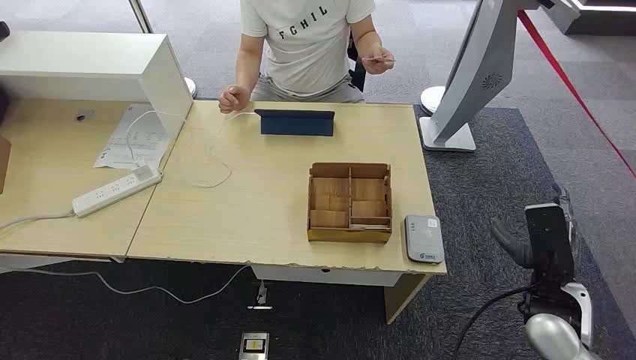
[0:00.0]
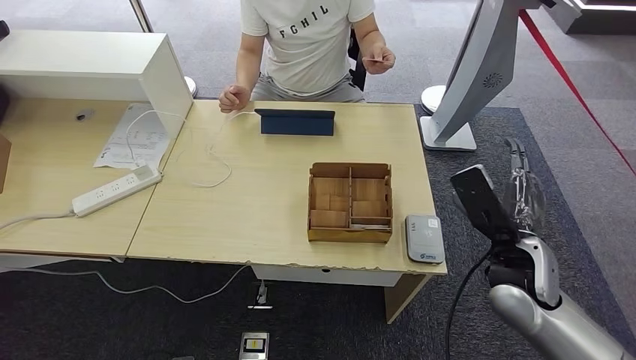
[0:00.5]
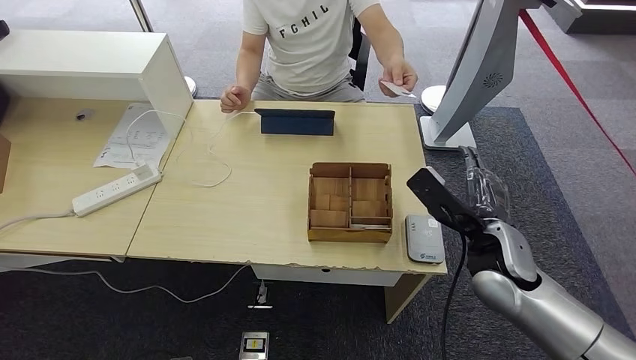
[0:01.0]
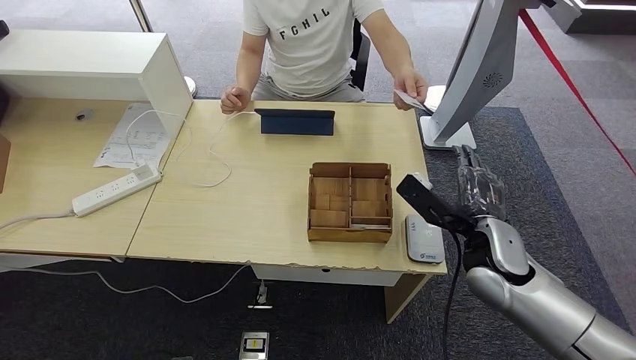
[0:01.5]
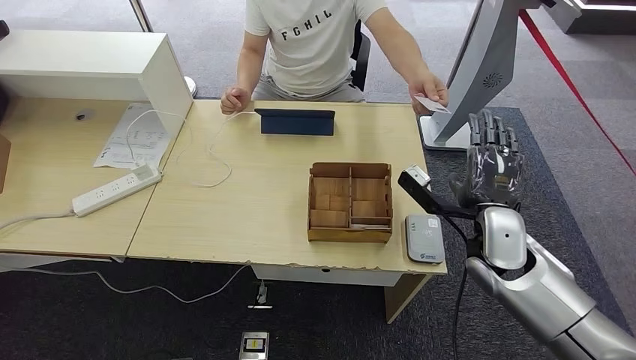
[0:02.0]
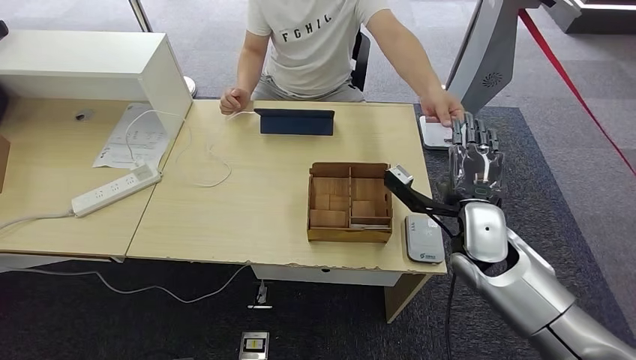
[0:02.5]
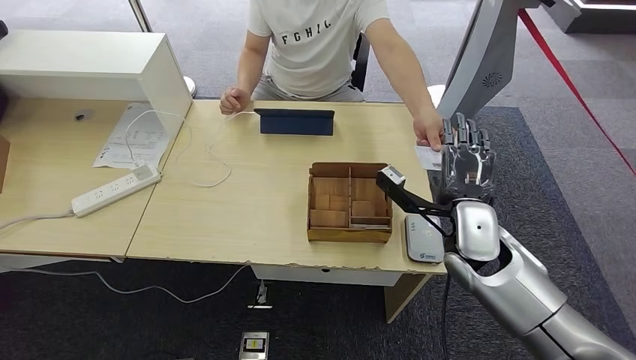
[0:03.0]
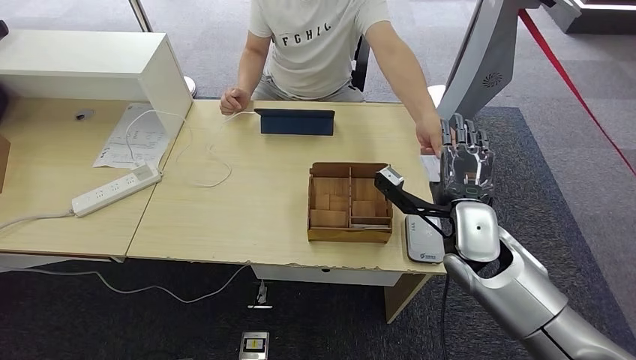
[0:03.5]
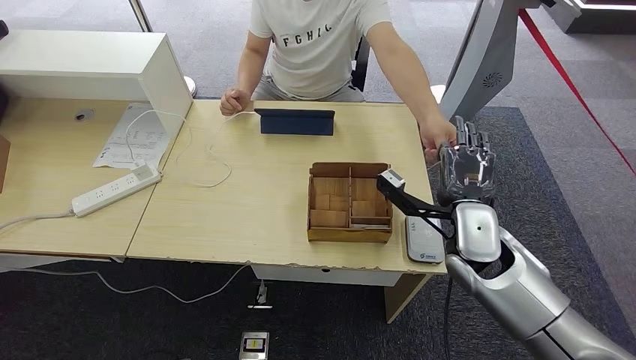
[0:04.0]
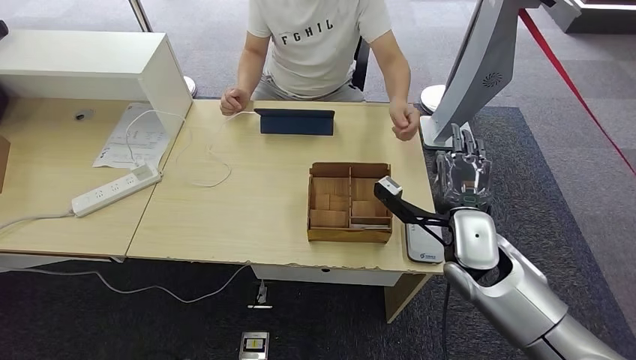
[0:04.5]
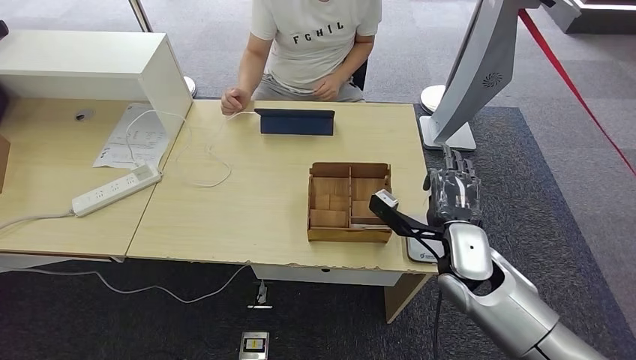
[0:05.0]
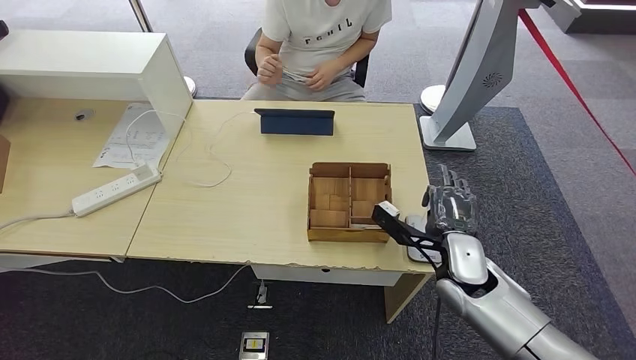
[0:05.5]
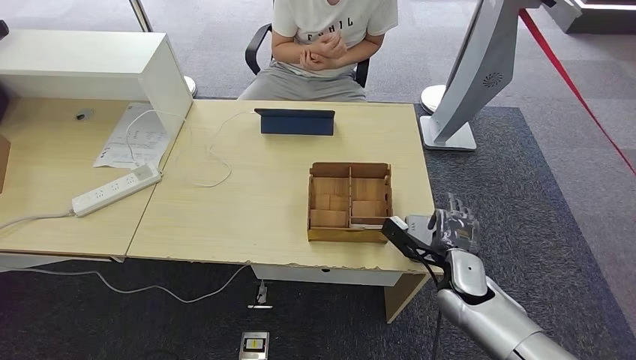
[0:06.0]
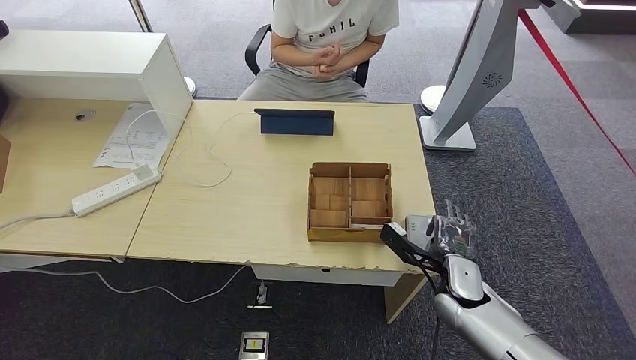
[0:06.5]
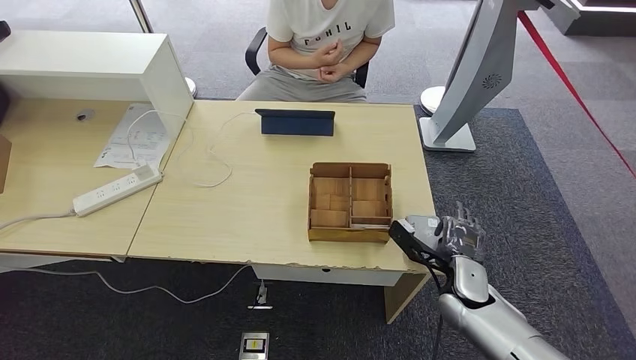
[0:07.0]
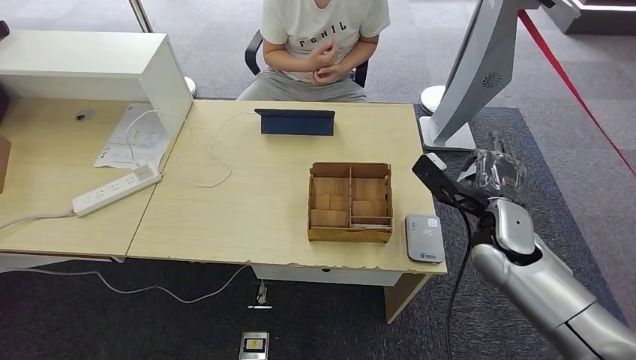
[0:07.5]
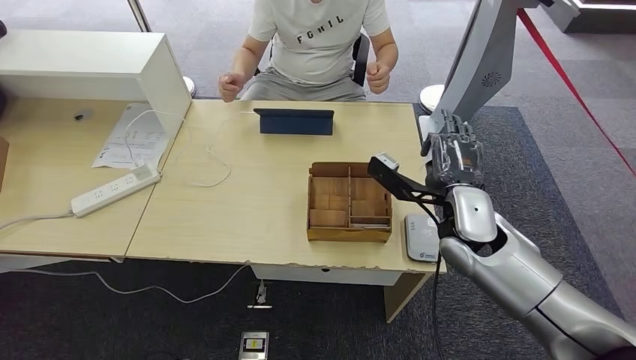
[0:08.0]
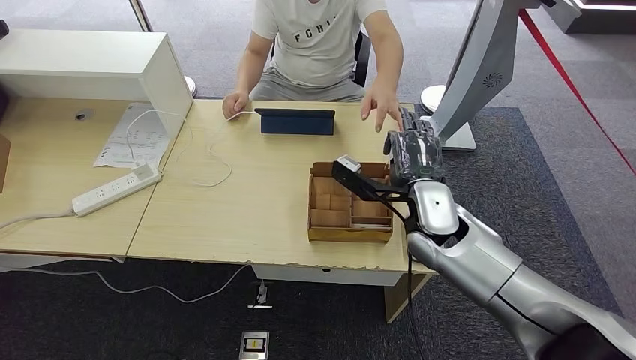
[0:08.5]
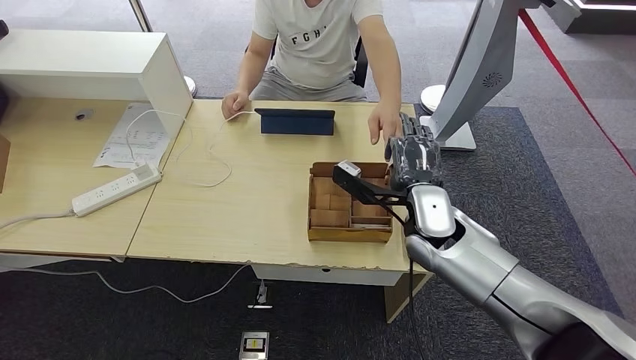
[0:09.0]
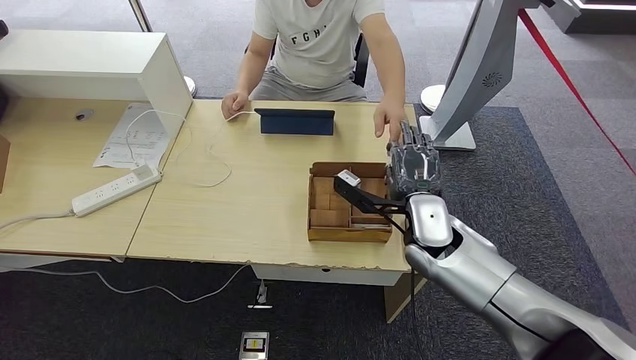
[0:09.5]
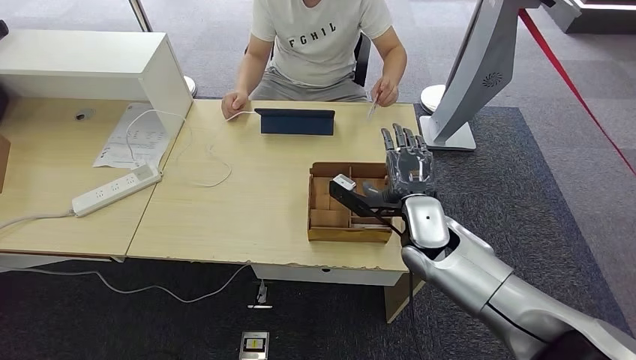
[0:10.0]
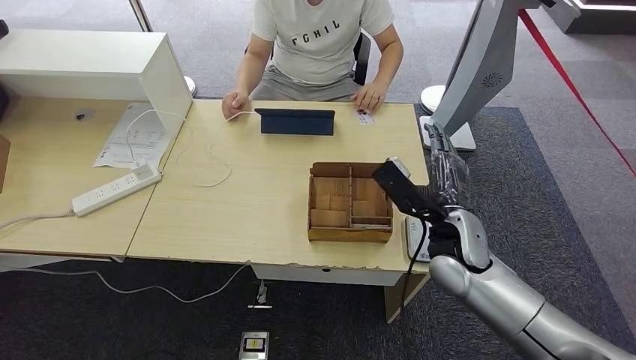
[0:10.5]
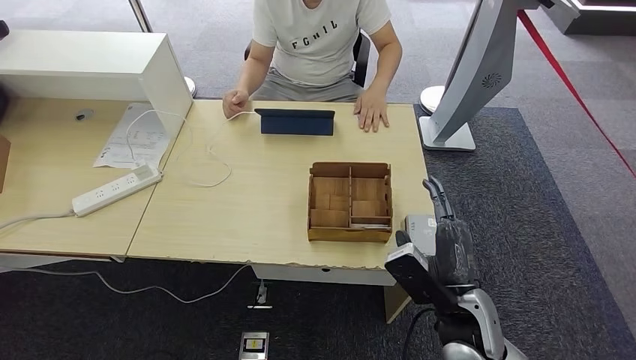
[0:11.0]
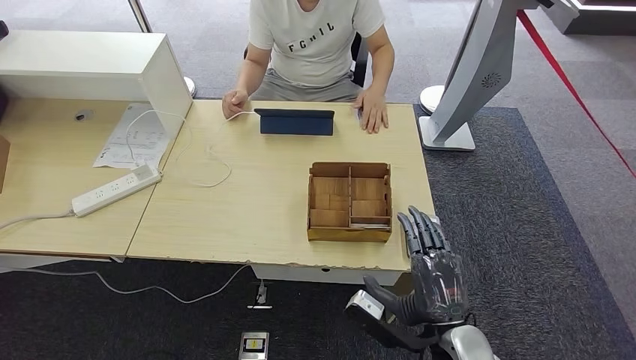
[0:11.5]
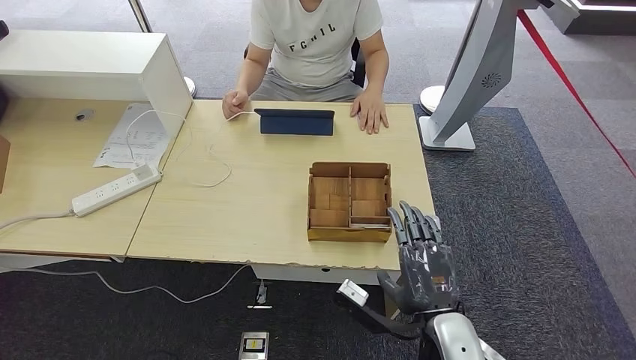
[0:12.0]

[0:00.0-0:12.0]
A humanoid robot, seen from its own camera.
Step, 0:00.0 to 0:05.0: Take the ID card from the person's hand.
Step, 0:06.0 to 0:07.5: Place the ID card on the card reader.
Step, 0:08.5 to 0:10.0: Hand the ID card to the person.
0:02.0 to 0:04.0: There are only small adjustments of the hands.
0:04.0 to 0:06.0: The right hand travels downward by some 10 cm.
0:06.0 to 0:08.0: The right hand moves upward, some 15 cm.
0:08.0 to 0:10.0: The right hand is displaced to the left by roughly 5 cm.
0:10.0 to 0:12.0: The right hand shifts some 20 cm backward.

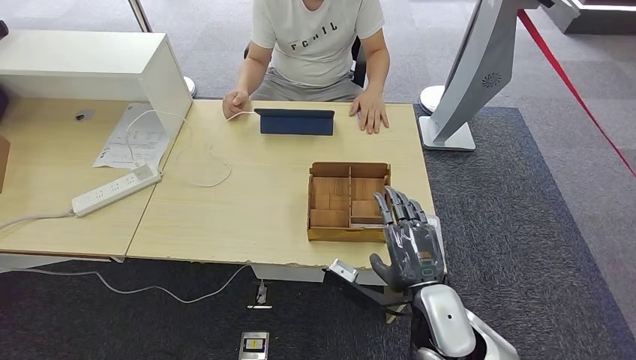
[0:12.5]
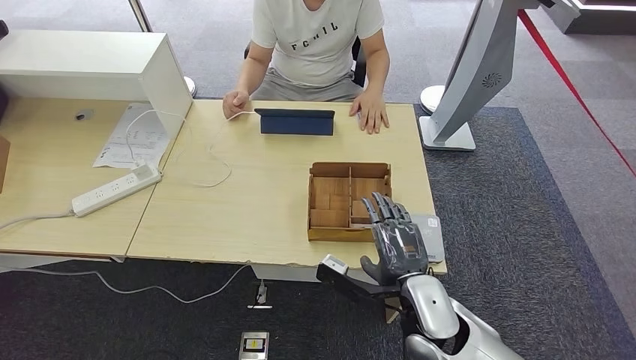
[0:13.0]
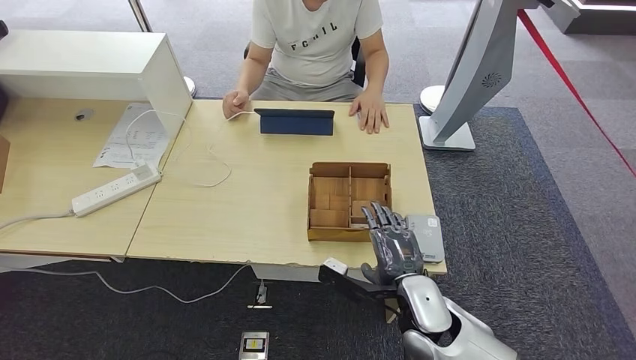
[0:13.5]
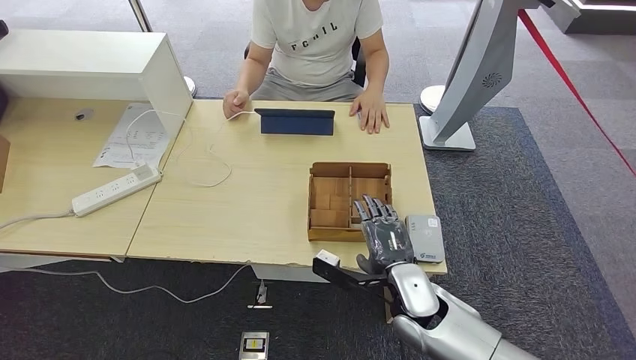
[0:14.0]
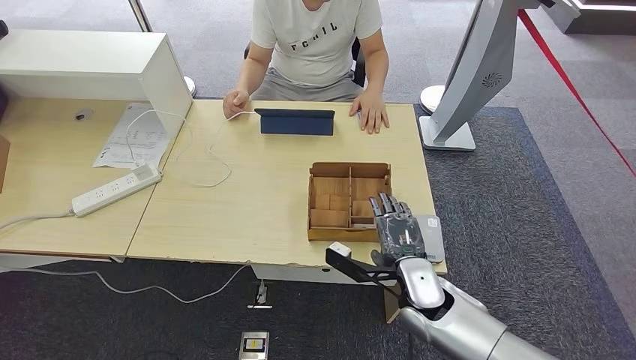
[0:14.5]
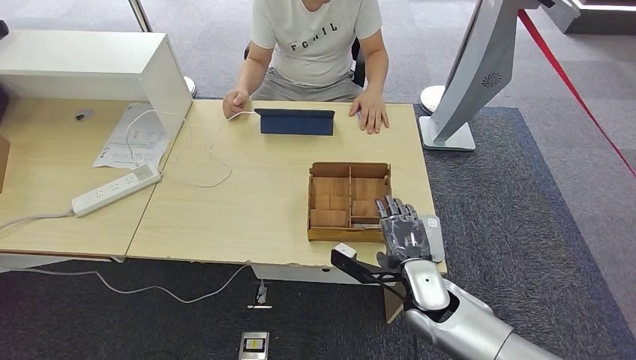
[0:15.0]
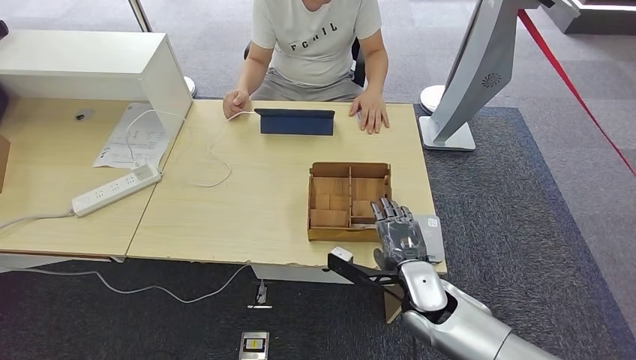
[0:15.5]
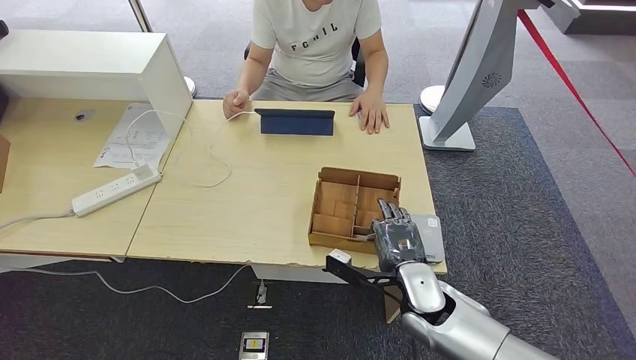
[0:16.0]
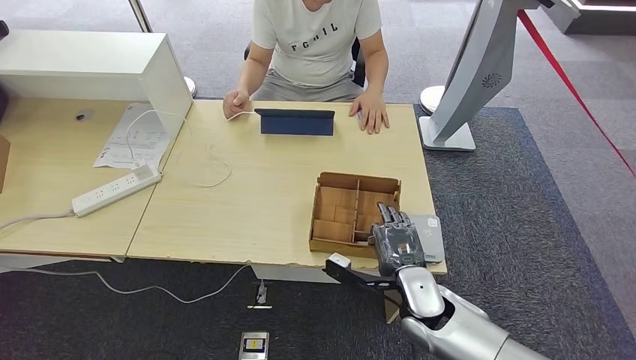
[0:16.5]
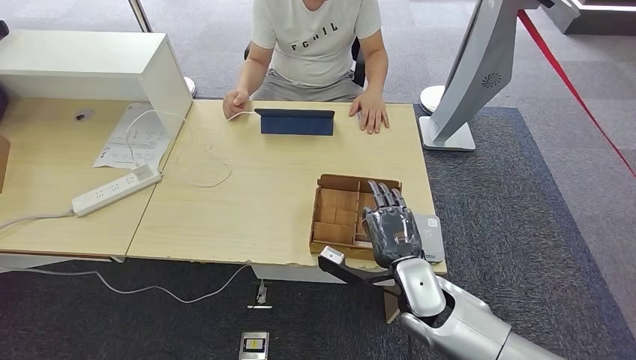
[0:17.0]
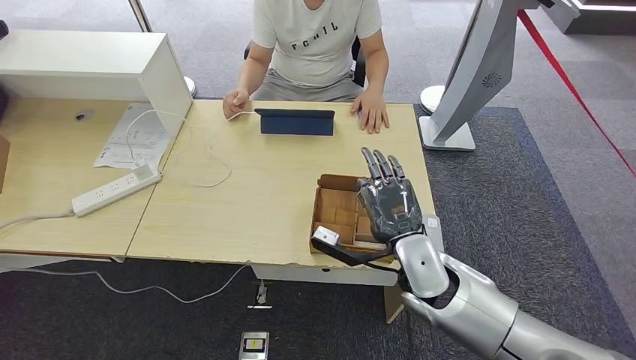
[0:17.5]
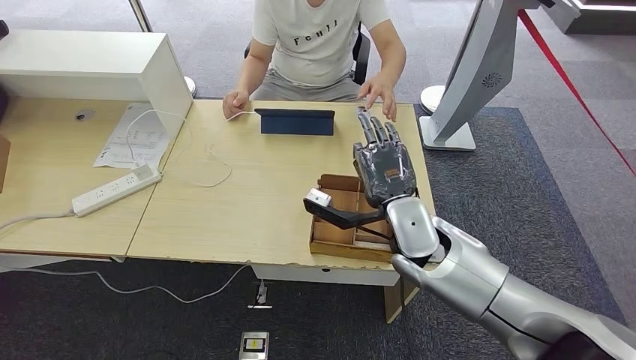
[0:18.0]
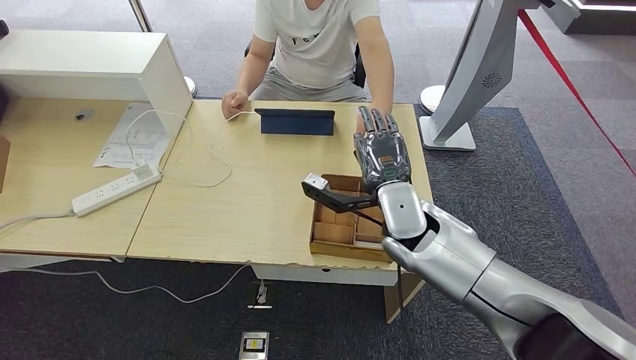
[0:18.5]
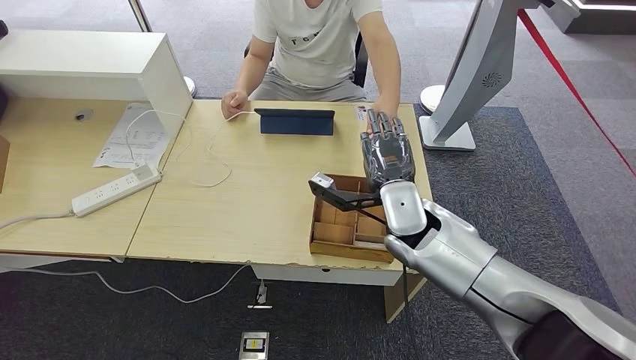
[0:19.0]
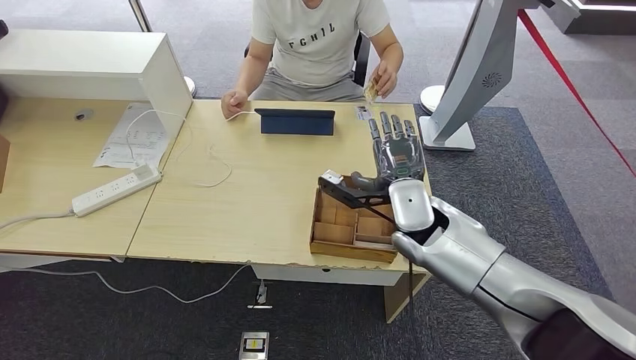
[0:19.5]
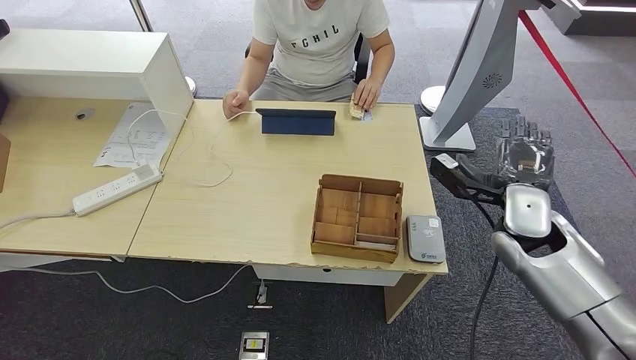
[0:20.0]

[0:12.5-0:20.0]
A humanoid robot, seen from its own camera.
Step, 0:12.5 to 0:18.0: Pick up the room key from the key card box.
Step, 0:19.0 to 0:20.0: Hand the room key to the person.
0:12.5 to 0:14.5: The right hand shifts some 5 cm forward.
0:14.5 to 0:16.5: The hands stay close to where they were, moving slightly.
0:16.5 to 0:18.0: The right hand is displaced upward and forward by roughly 15 cm.
0:18.0 to 0:20.0: The right hand is displaced to the right by about 15 cm.
